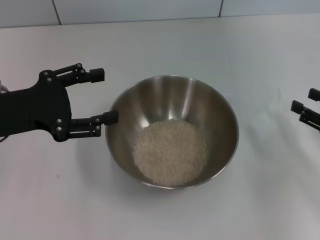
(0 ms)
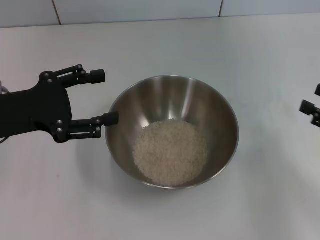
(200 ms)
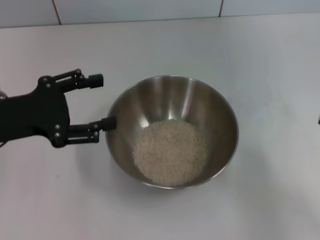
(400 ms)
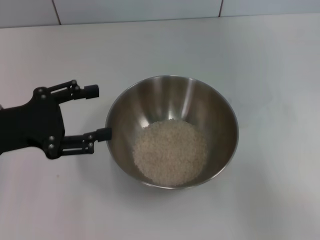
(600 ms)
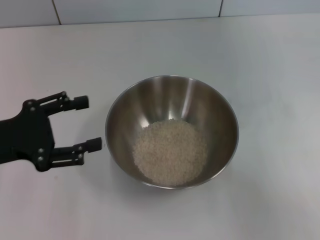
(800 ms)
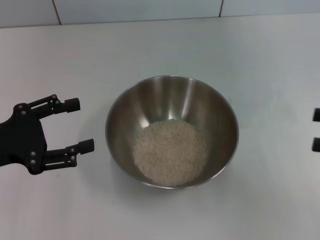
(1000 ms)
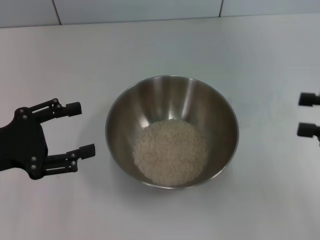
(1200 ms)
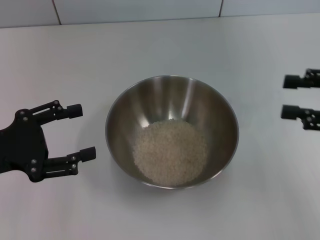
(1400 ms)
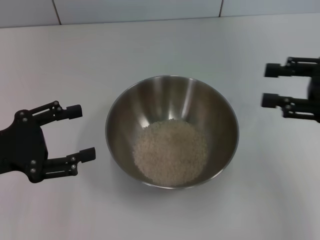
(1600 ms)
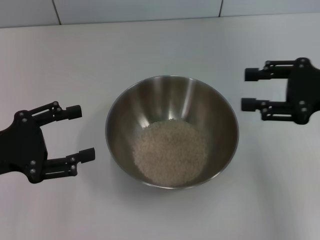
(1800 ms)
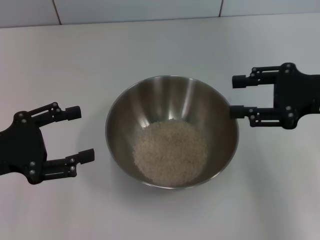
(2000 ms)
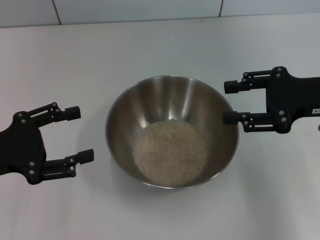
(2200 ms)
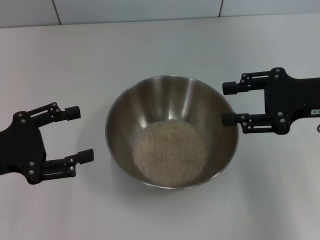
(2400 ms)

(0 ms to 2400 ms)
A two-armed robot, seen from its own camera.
Task of the whole recording: Place the bowl in the middle of the table with one hand and pour the rice from the grain cup into it with the other hand.
0 ms - 1200 ms: The right gripper travels upward by roughly 10 cm; the left gripper changes place by about 5 cm.
1200 ms - 2400 ms: The right gripper travels to the left and forward by about 10 cm.

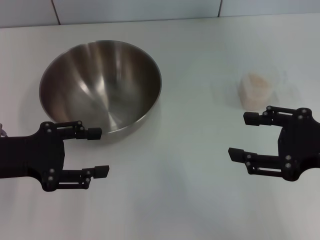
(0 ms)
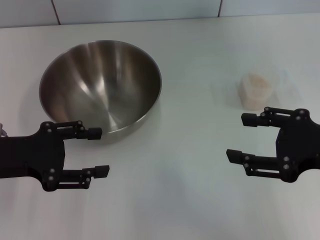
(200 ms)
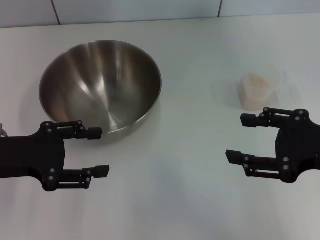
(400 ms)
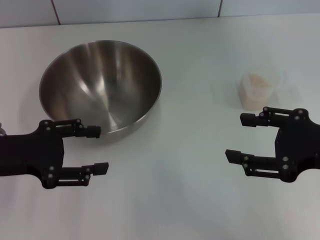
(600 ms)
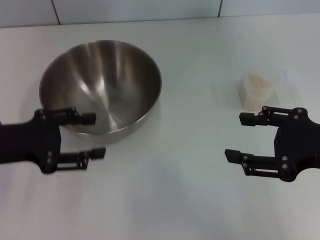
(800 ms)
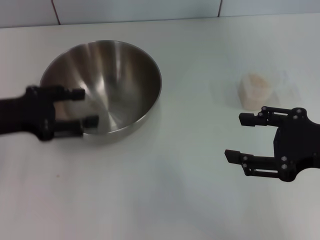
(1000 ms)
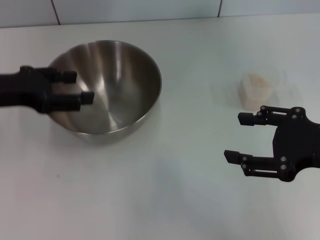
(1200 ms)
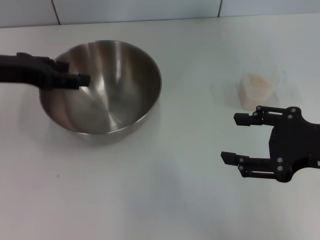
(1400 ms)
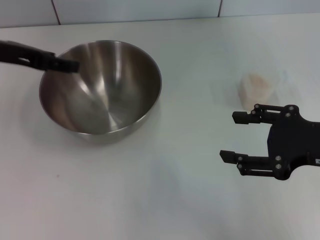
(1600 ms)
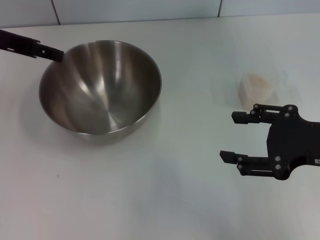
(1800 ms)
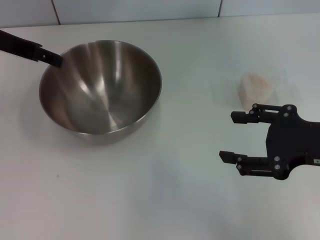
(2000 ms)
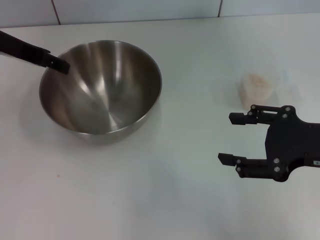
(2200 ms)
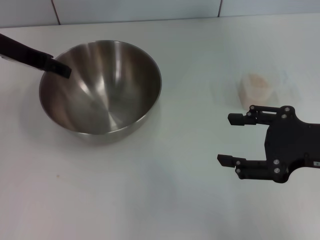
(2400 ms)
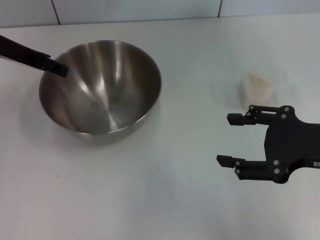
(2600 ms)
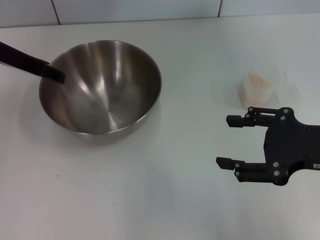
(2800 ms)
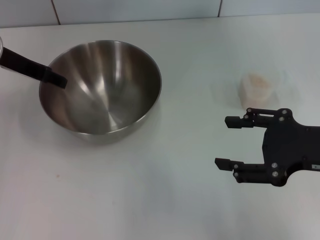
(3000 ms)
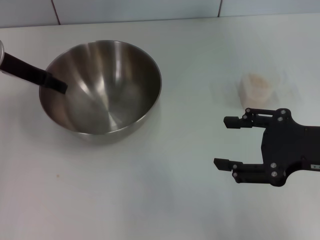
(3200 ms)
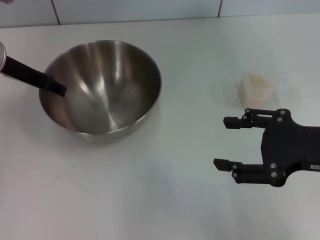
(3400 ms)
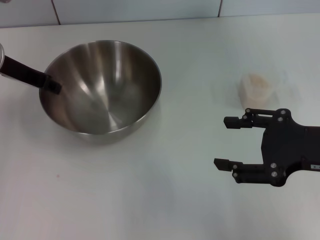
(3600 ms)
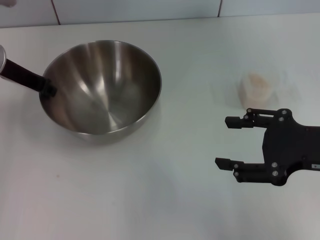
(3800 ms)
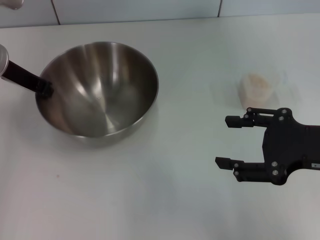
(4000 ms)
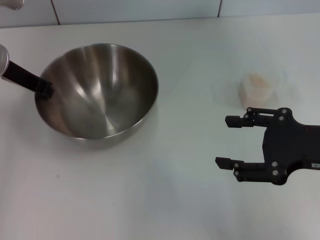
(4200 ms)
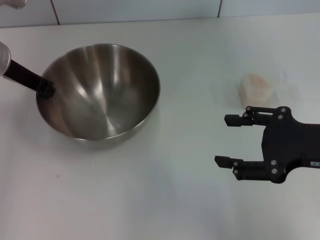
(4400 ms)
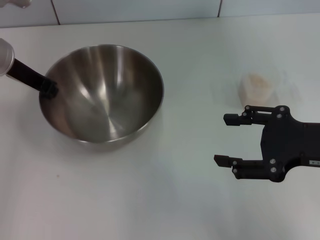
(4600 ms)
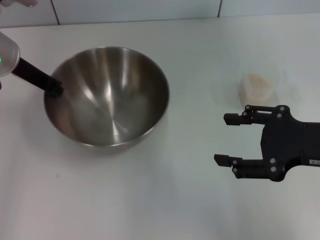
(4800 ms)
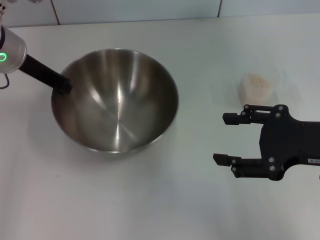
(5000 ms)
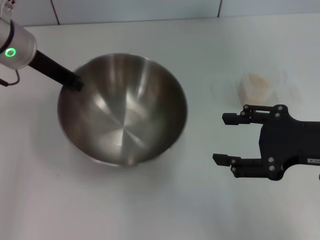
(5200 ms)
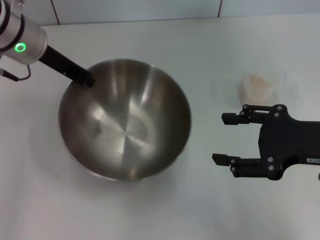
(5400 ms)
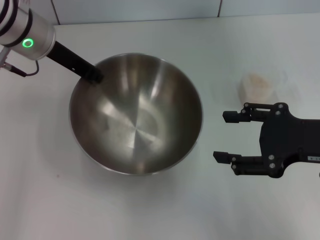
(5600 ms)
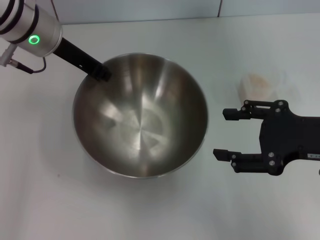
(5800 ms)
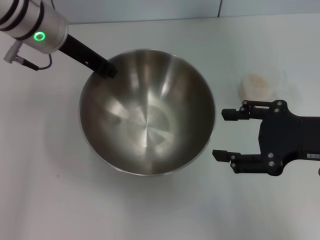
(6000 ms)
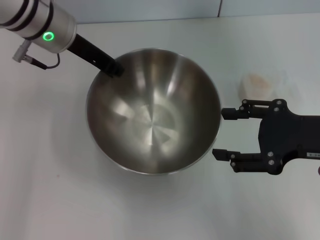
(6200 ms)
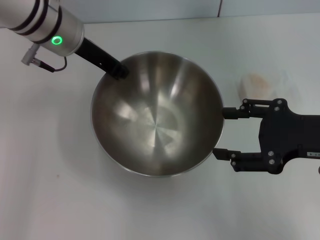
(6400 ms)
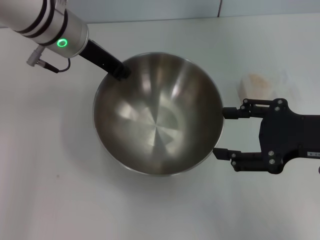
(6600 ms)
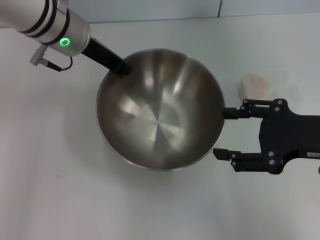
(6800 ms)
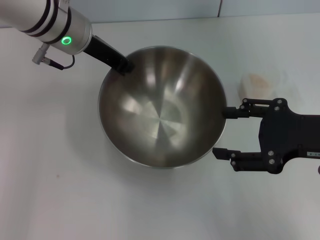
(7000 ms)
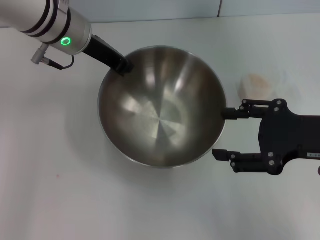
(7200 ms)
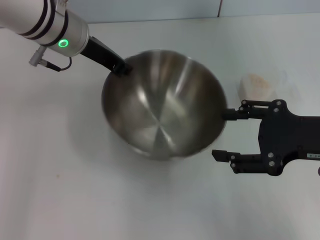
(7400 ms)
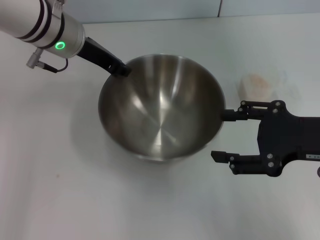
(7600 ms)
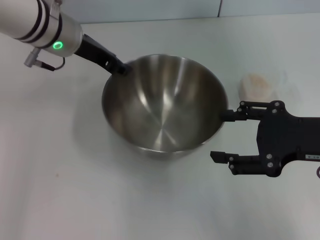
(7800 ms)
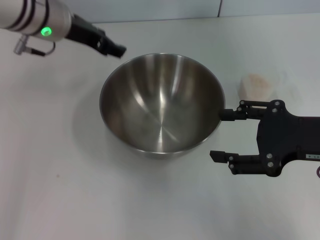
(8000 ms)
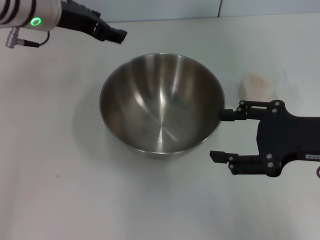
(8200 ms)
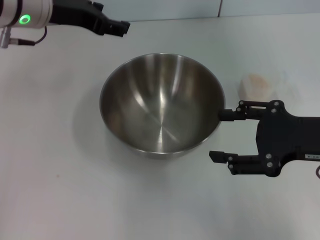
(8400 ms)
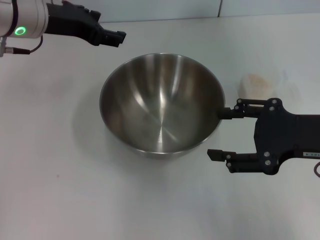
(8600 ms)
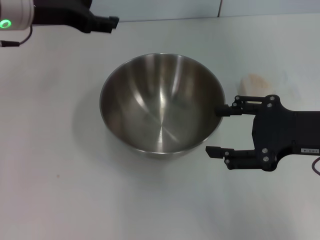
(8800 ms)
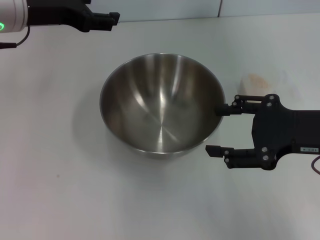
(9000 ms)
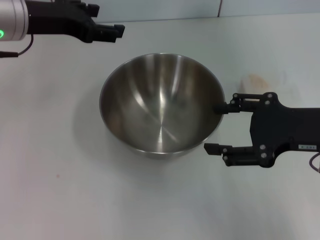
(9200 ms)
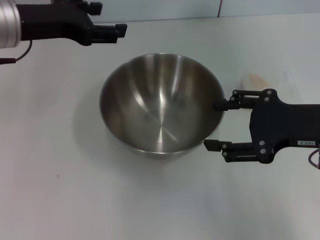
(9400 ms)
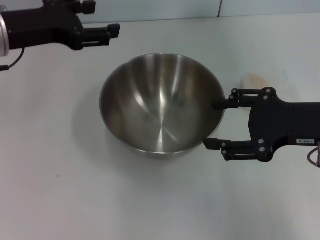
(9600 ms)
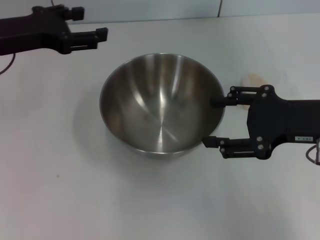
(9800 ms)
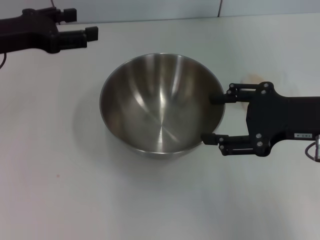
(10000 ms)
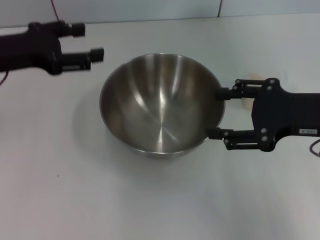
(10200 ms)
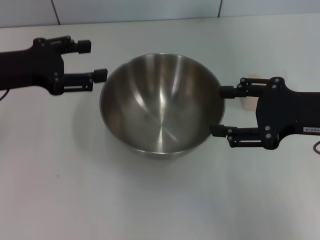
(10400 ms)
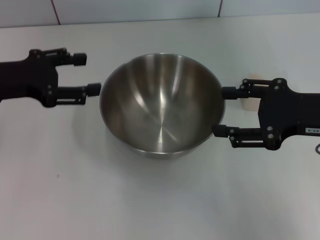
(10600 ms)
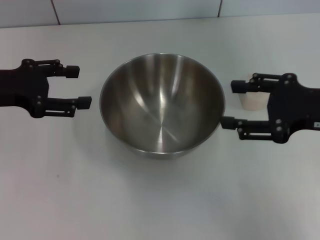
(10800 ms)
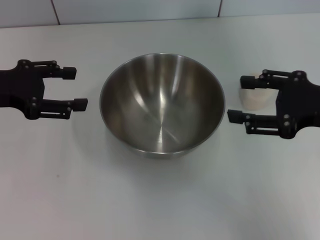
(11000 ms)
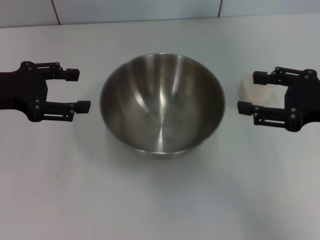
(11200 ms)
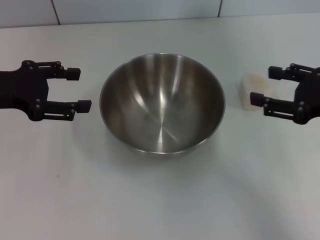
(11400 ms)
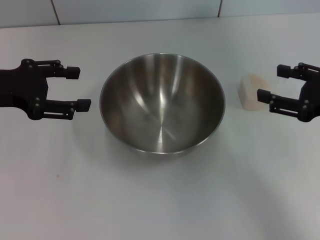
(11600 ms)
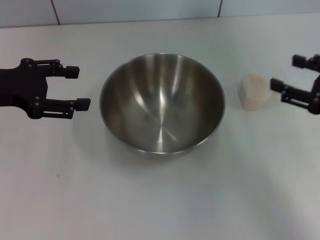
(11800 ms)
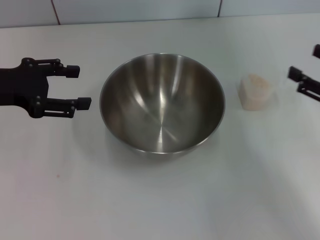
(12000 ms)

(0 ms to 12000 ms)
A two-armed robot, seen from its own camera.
Task of the whole recording: Place the bowl in the middle of the table with one hand and pour the rice from the grain cup into it with the other hand.
Step, 0 ms - 5200 ms: Pick up the bowl with the left gripper.
Step, 5400 ms - 8600 ms: Place the bowl in the center of view with the left gripper.
0 ms - 1600 ms: The left gripper is displaced forward and upward by roughly 15 cm.
1600 ms - 3000 ms: The left gripper shifts by about 5 cm.
3000 ms - 4400 ms: The left gripper closes up.
4400 ms - 6000 ms: The left gripper shifts approximately 10 cm to the right.
6000 ms - 7600 ms: The grippers move only a little.
7600 ms - 9000 ms: The left gripper is displaced to the left by roughly 5 cm, and opens.
9000 ms - 10400 ms: The left gripper travels to the left and downward by approximately 10 cm.
10400 ms - 12000 ms: The right gripper moves to the right and downward, roughly 10 cm.

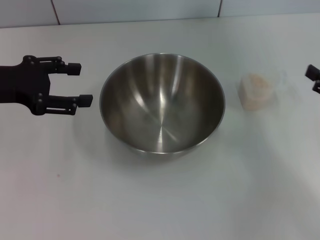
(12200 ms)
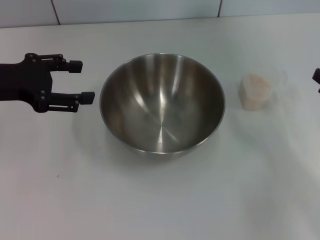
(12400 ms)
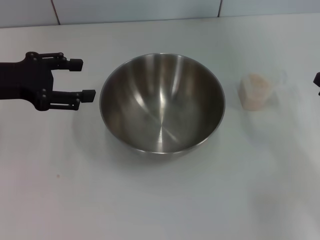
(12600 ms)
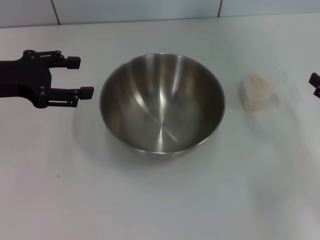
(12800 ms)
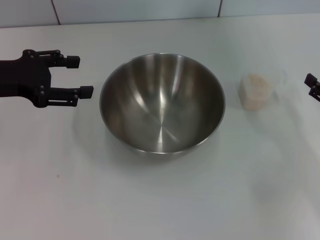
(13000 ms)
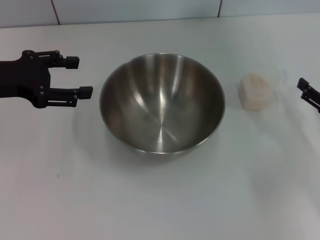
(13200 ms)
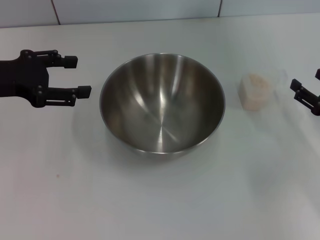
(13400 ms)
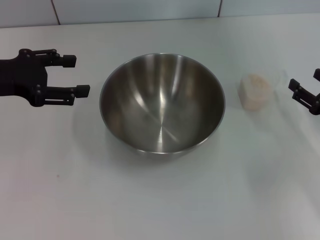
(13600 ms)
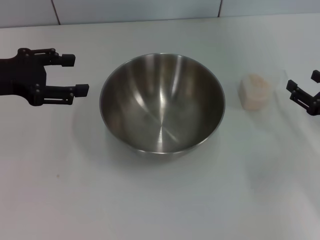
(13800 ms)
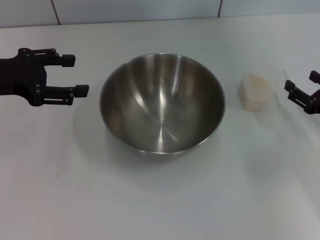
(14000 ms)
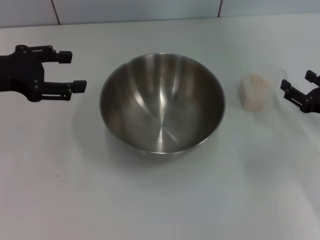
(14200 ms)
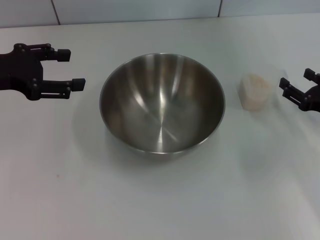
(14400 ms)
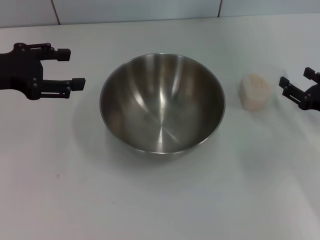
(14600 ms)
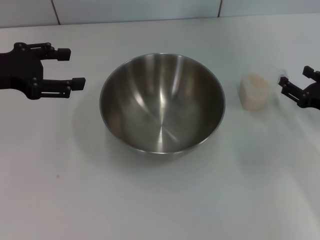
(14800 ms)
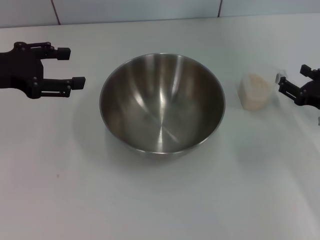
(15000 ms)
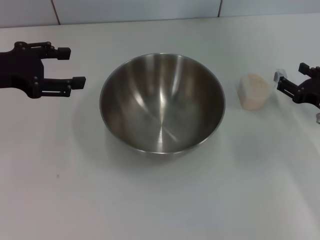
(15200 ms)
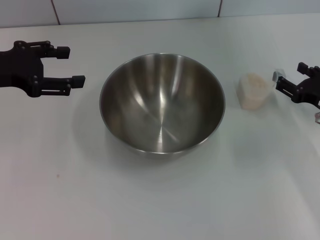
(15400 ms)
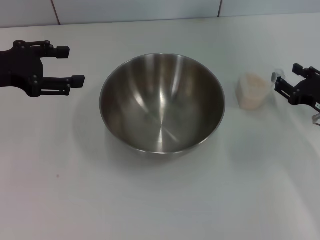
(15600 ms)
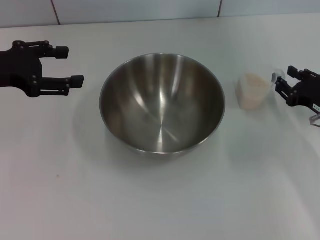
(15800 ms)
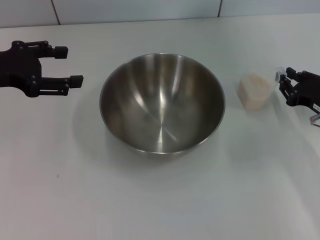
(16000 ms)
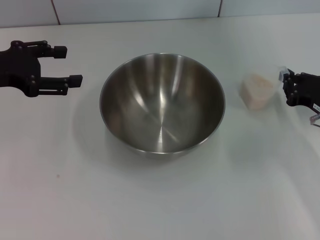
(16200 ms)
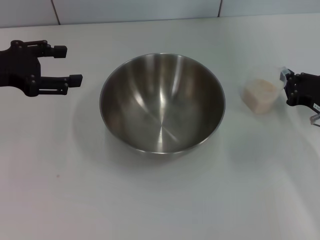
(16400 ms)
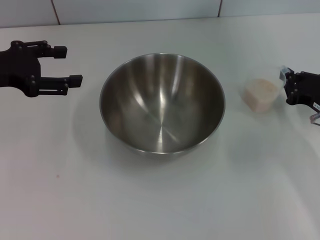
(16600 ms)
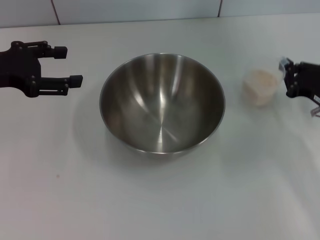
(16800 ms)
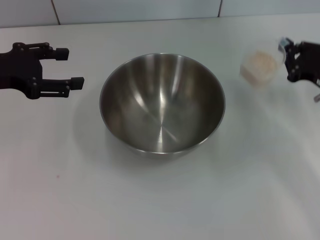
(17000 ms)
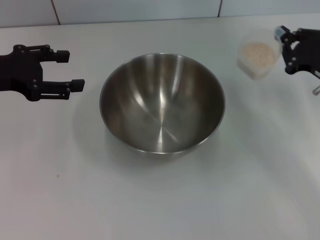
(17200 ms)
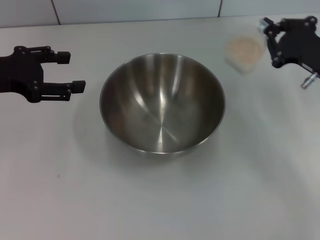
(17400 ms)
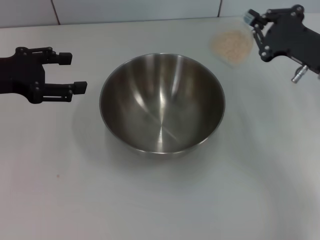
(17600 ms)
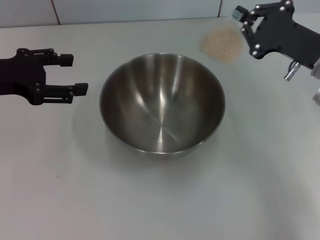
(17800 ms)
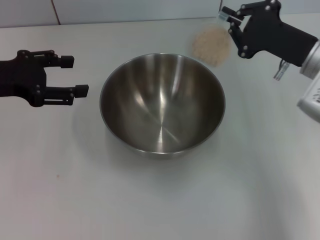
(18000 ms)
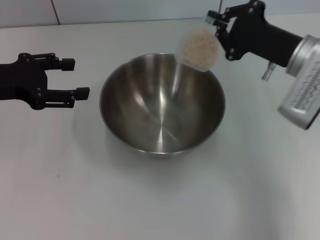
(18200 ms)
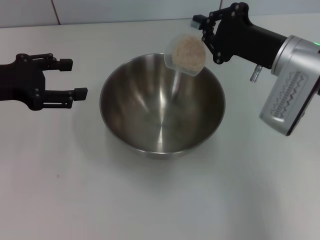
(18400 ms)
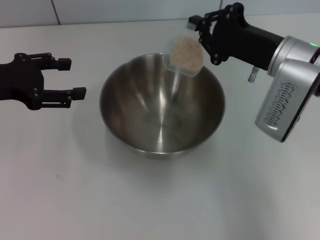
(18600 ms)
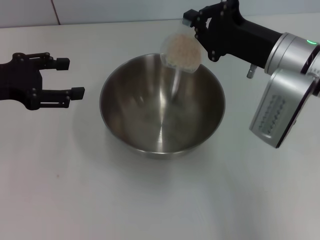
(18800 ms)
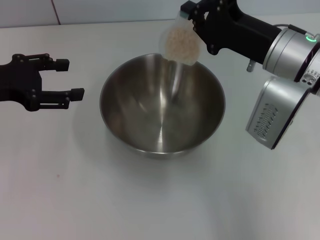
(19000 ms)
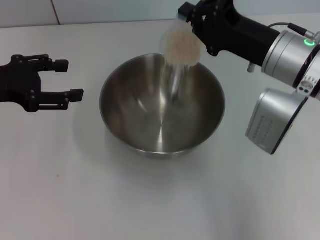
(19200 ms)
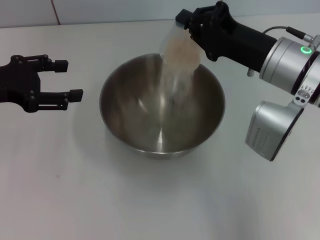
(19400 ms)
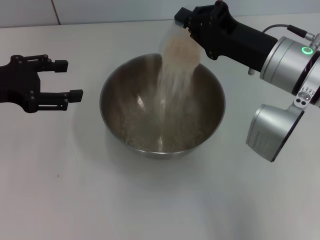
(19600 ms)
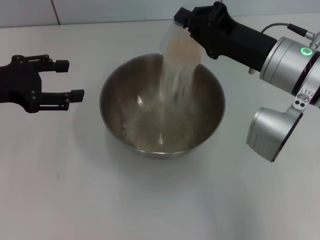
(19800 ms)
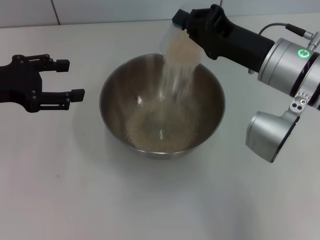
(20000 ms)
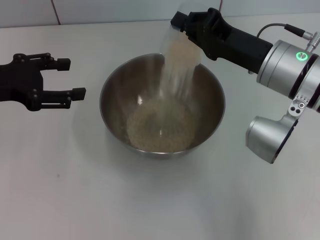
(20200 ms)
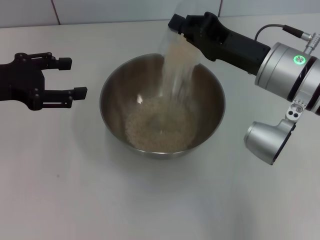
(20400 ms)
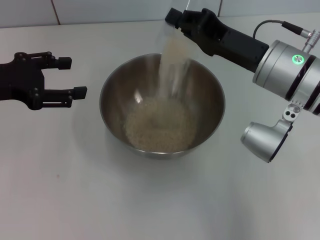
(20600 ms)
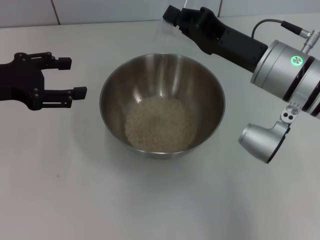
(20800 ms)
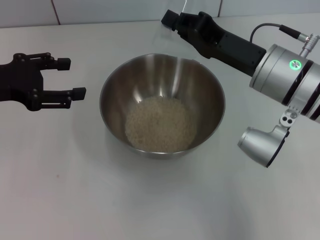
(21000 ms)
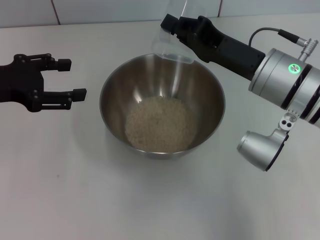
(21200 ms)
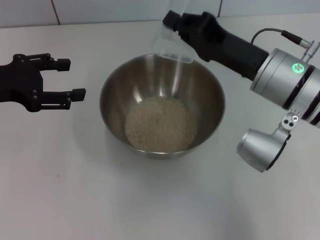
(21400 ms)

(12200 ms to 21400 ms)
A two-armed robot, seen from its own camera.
Task of the whole recording: Place the bowl in the middle of the table with one hand and pour the rice from the grain cup into it with the other hand.
Step, 12200 ms - 17200 ms: Pick up the cup with rice in it with the right gripper.
12200 ms - 13800 ms: The right gripper moves downward, about 5 cm.
13800 ms - 15200 ms: There are only small adjustments of the grippers.
15200 ms - 16800 ms: The right gripper closes.
16800 ms - 18400 ms: The right gripper is displaced to the left and upward by about 15 cm.
19800 ms - 21400 ms: There are only small adjustments of the grippers.
